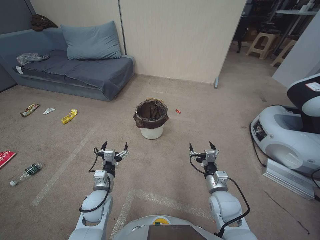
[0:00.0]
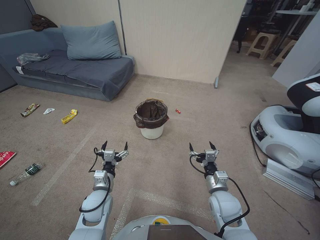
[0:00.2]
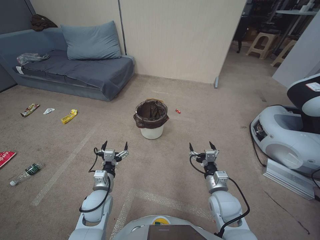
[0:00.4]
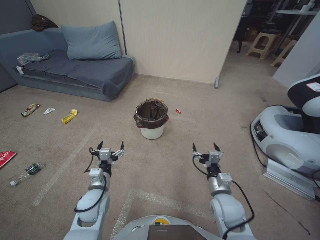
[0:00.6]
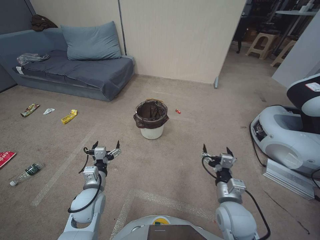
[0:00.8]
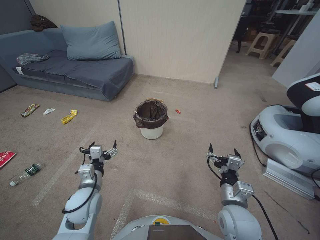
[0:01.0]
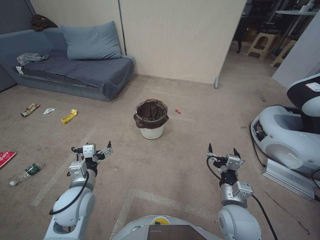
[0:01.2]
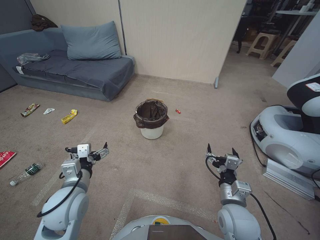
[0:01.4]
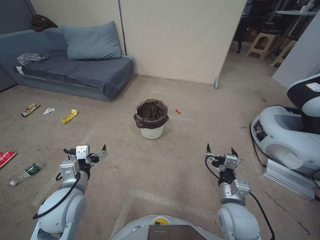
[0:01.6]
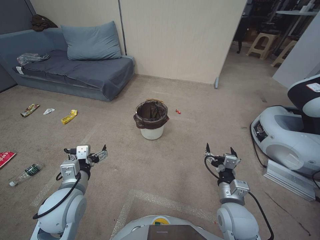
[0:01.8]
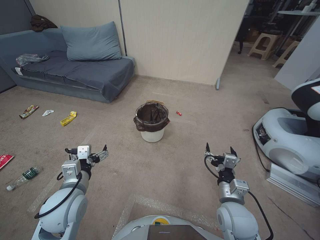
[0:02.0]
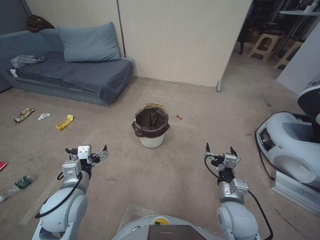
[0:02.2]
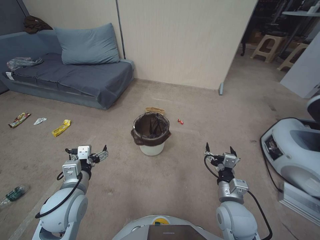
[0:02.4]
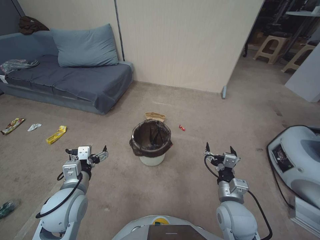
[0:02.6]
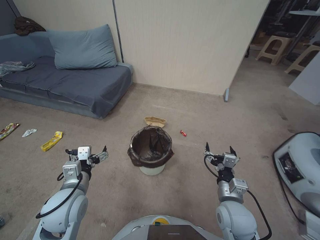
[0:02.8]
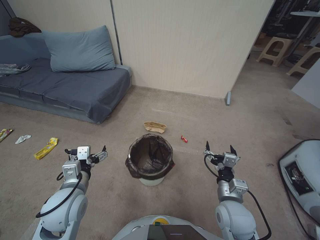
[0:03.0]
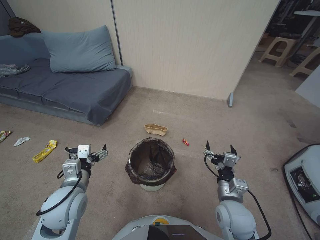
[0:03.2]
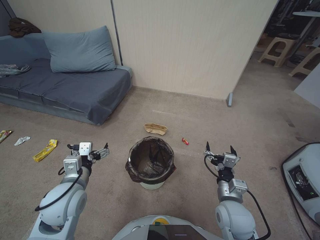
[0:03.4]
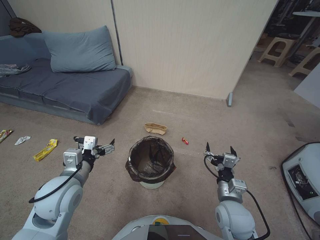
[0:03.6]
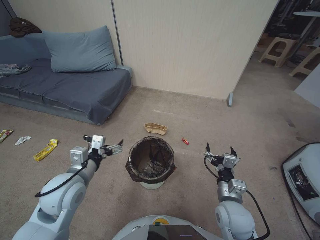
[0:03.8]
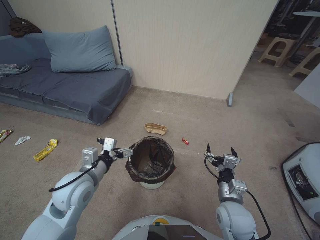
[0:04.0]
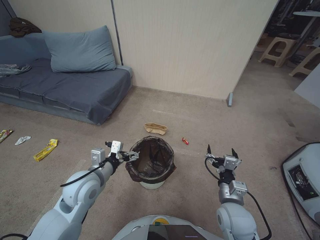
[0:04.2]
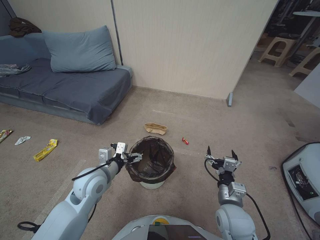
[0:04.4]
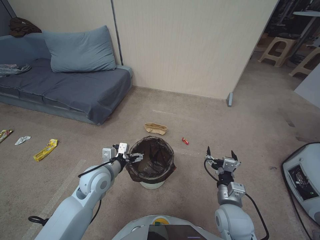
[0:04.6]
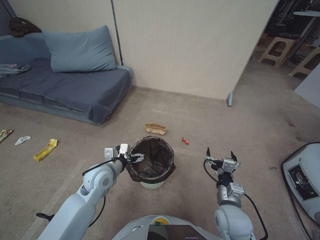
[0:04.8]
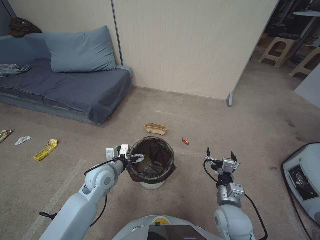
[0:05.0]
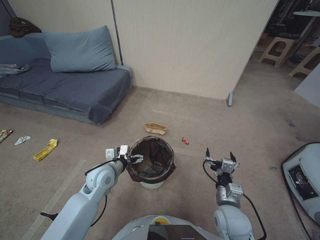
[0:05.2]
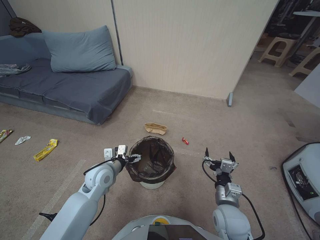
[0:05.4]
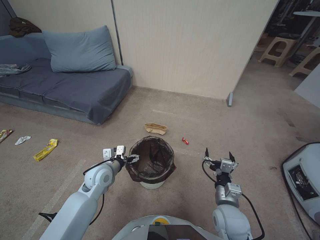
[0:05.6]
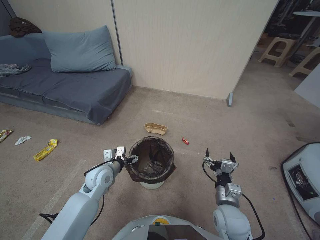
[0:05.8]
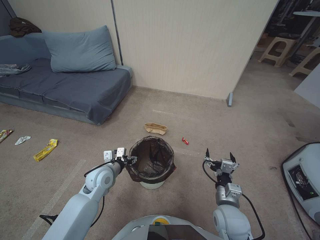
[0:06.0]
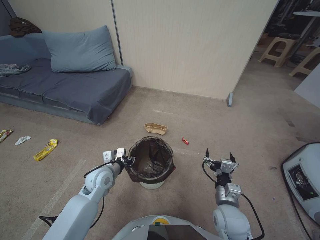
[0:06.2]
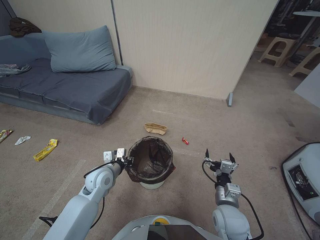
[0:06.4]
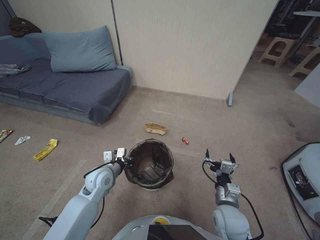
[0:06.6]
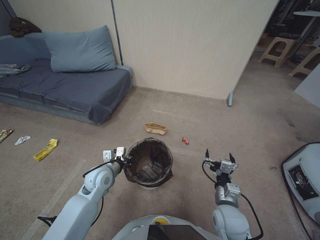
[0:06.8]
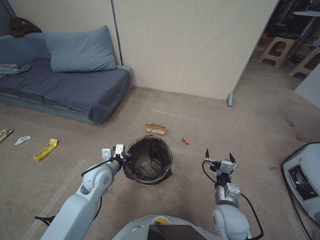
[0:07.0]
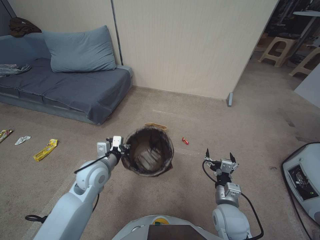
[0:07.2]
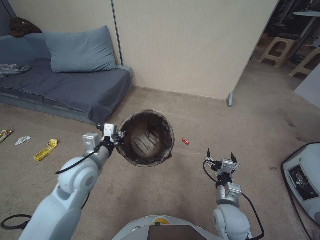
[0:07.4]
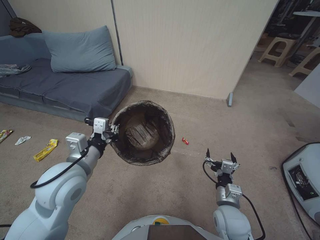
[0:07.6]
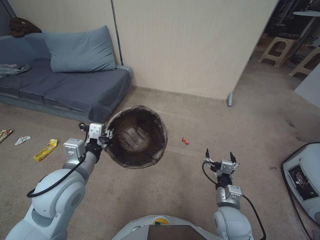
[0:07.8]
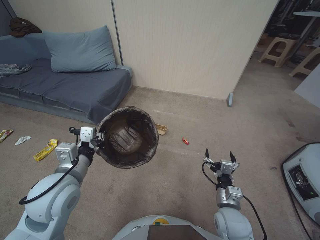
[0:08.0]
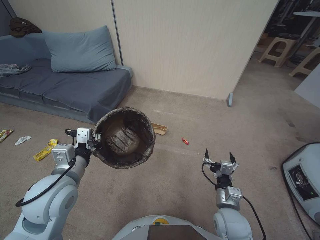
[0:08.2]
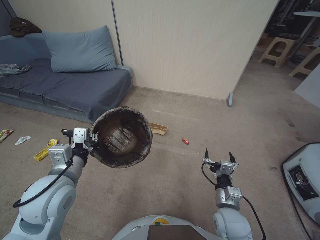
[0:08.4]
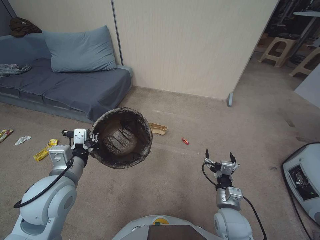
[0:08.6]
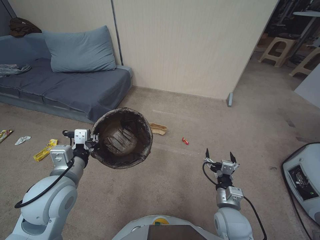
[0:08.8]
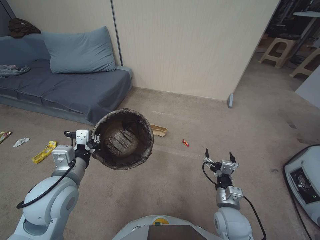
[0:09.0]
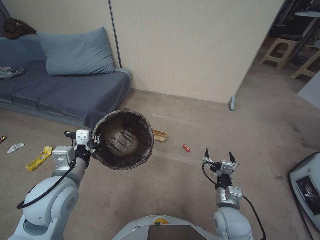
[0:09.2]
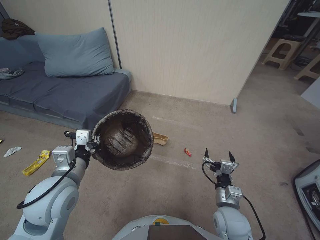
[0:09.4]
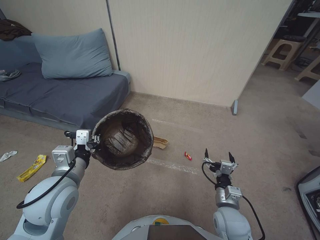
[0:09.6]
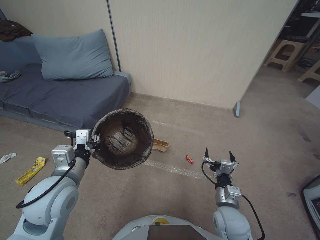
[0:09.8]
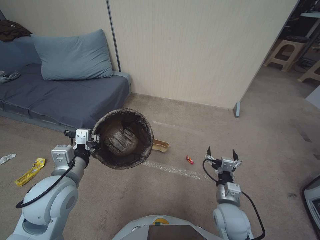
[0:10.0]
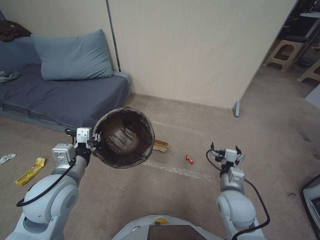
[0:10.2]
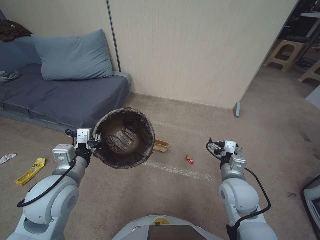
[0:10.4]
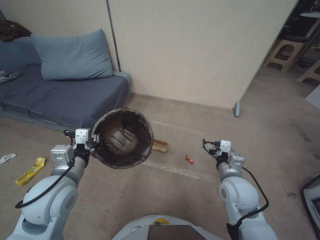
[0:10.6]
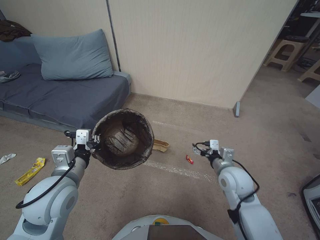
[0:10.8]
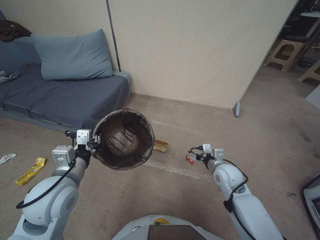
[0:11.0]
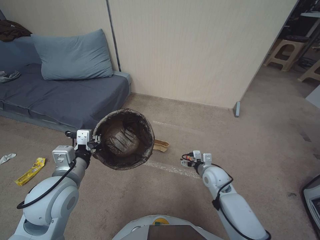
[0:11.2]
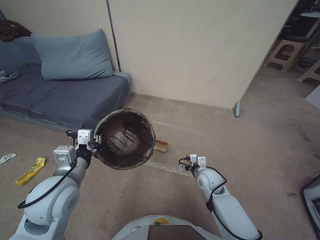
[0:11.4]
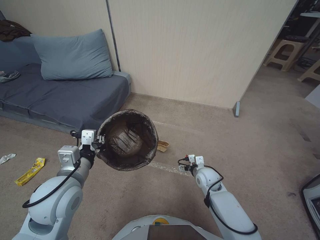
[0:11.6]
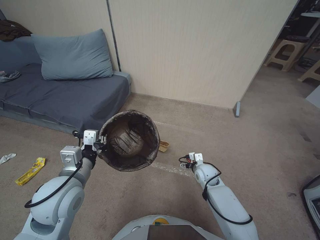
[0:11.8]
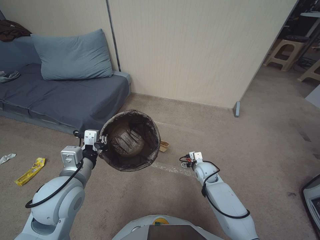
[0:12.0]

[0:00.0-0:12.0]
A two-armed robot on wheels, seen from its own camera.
Task of the whole recording: Pick up the trash bin, then pick up the garbage from the floor and place it into the trash bin.
0:03.0 to 0:04.4: The left gripper heads forward, covering about 5 cm.
0:04.4 to 0:06.0: The left gripper is displaced downward by approximately 5 cm.
0:06.0 to 0:07.6: The left gripper travels upward by about 15 cm, and closes its fingers.
0:07.6 to 0:09.0: The grippers stay close to where they were, moving slightly.
0:09.0 to 0:10.4: The right gripper goes about 10 cm upward and forward.
0:10.4 to 0:12.0: The right gripper travels downward and forward by some 20 cm.

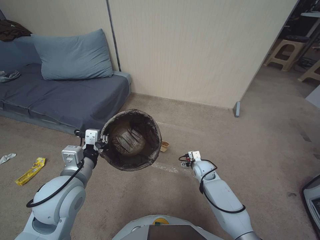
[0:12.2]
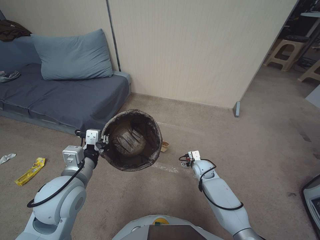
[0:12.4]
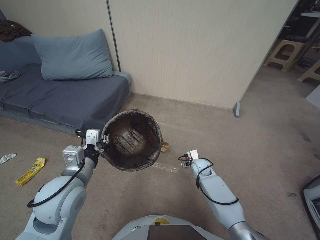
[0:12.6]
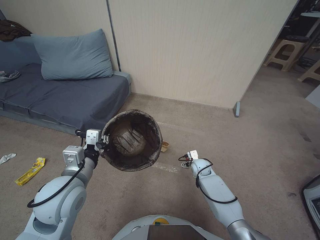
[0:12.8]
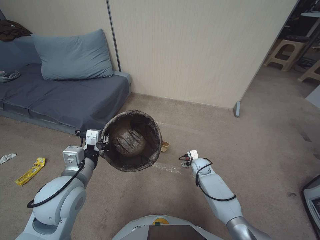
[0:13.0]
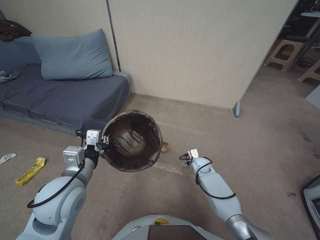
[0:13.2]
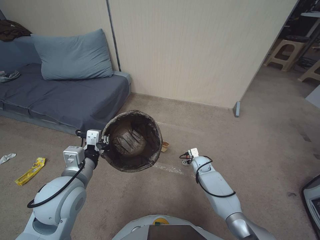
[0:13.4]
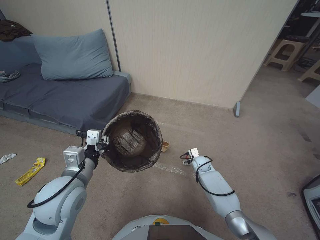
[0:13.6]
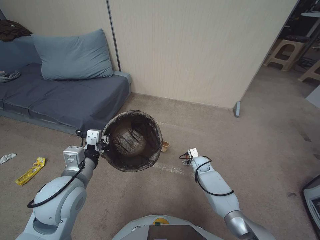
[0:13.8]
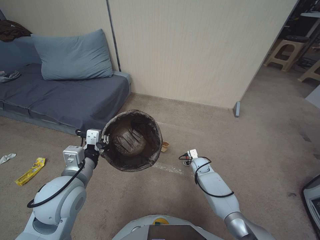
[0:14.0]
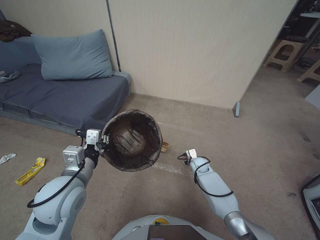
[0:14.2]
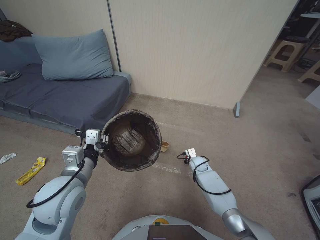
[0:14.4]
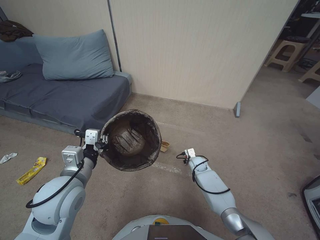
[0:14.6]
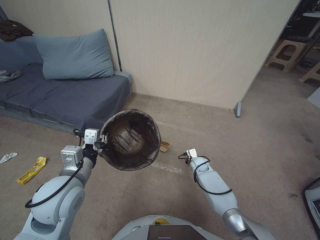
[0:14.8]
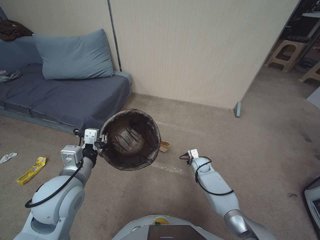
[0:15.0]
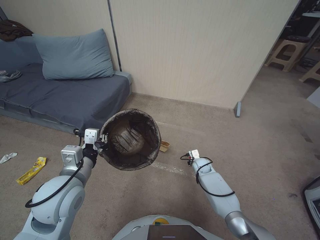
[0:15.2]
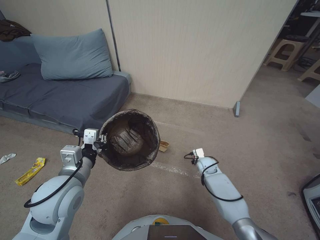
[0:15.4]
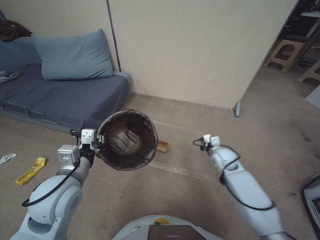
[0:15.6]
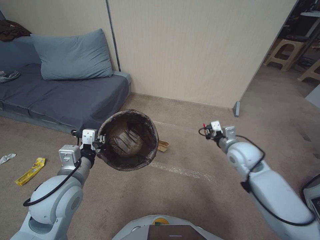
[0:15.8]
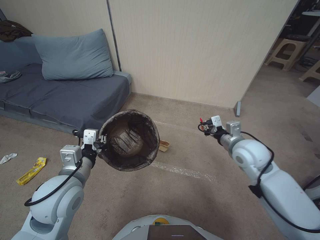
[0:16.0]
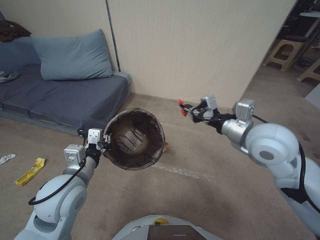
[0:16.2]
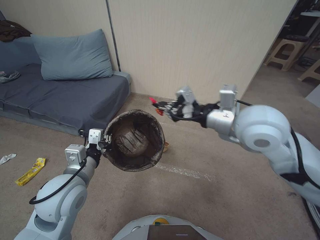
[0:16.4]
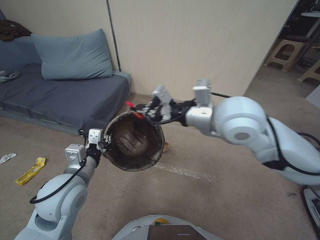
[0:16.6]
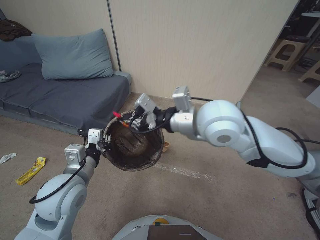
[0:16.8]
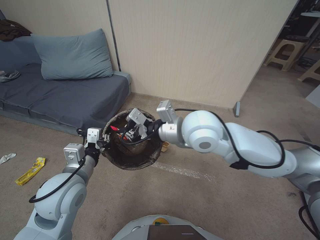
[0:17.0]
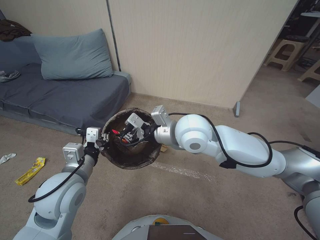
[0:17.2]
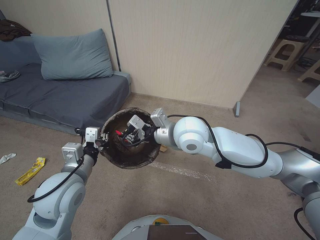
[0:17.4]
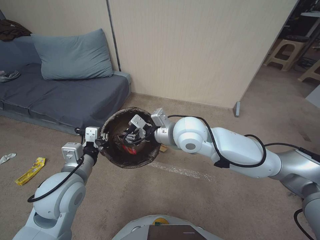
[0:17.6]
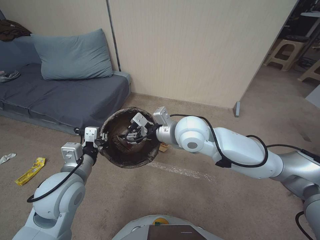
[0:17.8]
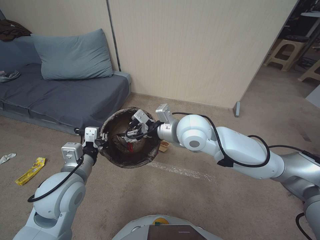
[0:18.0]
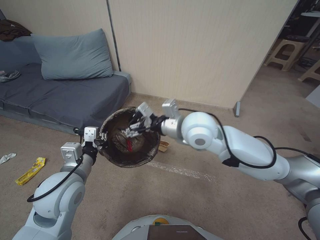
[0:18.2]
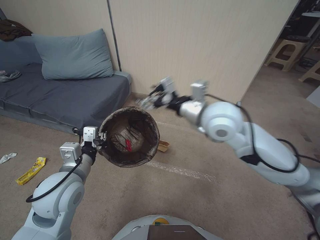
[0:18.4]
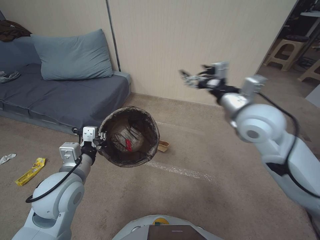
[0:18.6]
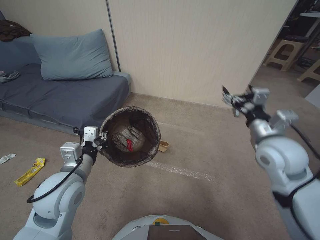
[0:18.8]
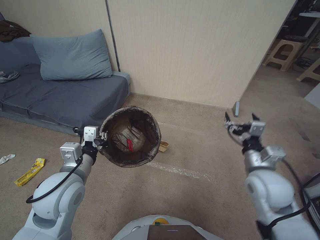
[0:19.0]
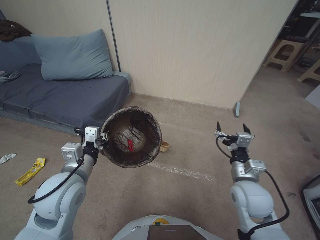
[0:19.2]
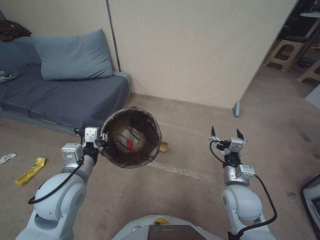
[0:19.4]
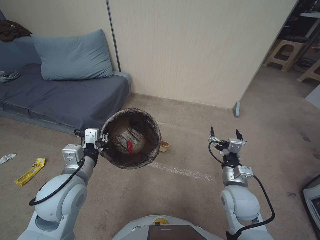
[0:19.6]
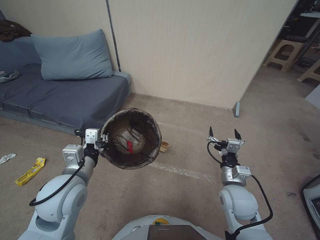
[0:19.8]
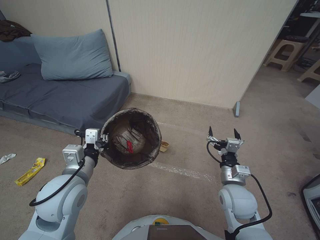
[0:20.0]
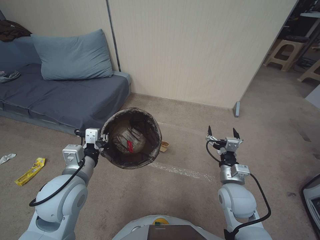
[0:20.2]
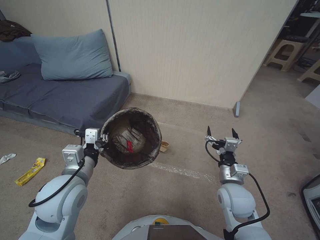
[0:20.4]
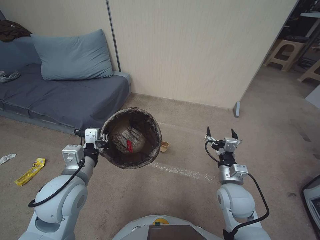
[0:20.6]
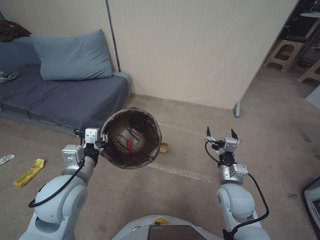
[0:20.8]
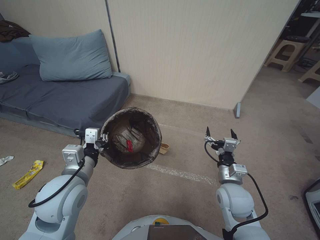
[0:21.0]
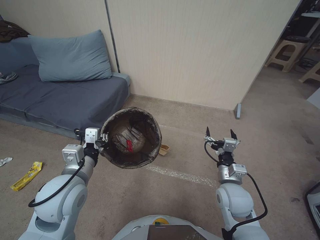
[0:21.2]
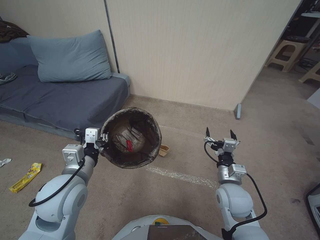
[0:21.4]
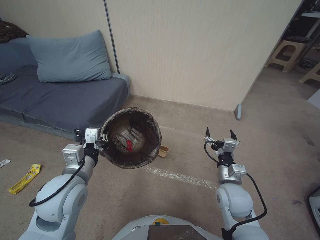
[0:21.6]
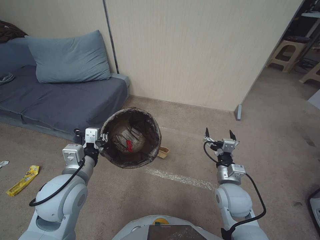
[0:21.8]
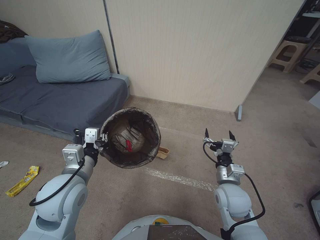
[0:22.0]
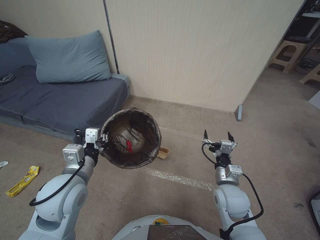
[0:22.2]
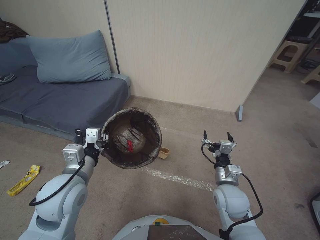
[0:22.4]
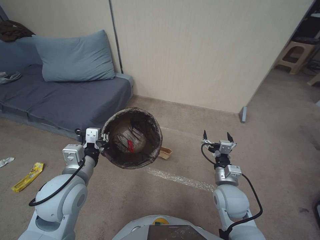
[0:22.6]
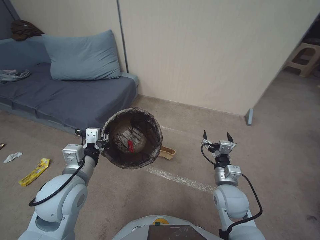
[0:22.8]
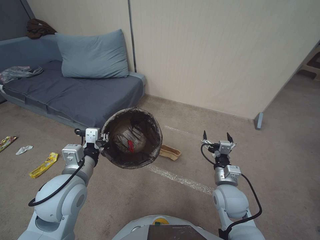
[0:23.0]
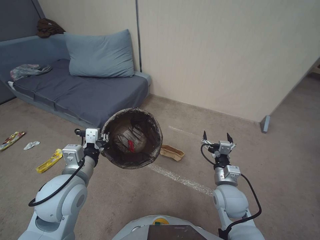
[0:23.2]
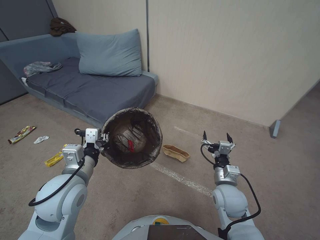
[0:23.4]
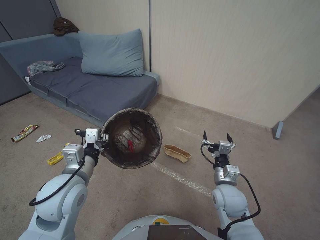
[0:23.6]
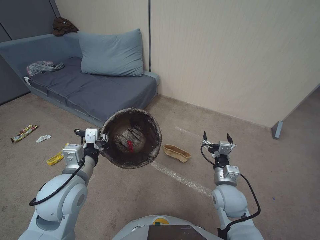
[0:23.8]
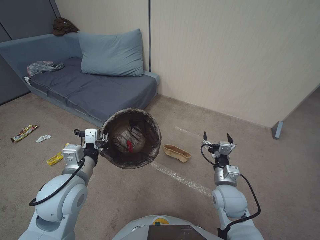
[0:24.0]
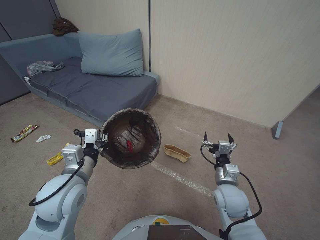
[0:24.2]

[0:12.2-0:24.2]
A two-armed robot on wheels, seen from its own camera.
Task of the whole recording: Pick up the trash bin, then pick up the garbage from the floor and place it into the trash bin.
0:12.2 to 0:13.8: The right gripper changes place by roughly 5 cm.
0:13.8 to 0:15.2: The right gripper closes up.
0:15.2 to 0:16.6: The right gripper moves upward, about 50 cm.
0:16.6 to 0:18.2: The right gripper moves to the left, approximately 15 cm, and opens its fingers.
0:18.2 to 0:19.8: The right gripper goes some 30 cm downward, to the right and backward.
0:19.8 to 0:22.6: The grippers make only small movements.
